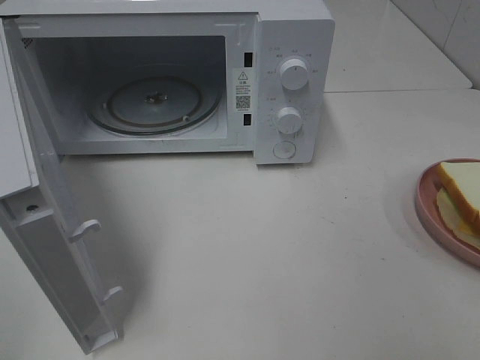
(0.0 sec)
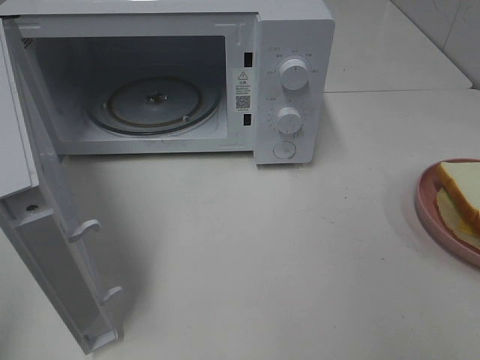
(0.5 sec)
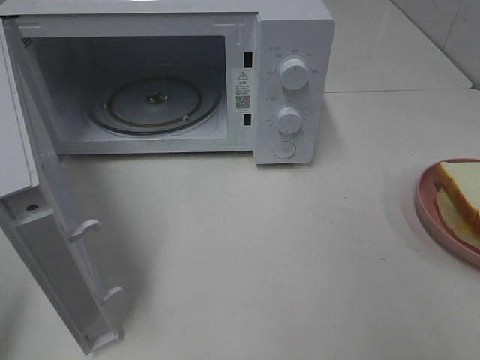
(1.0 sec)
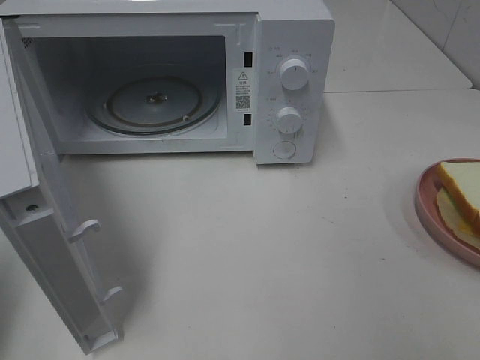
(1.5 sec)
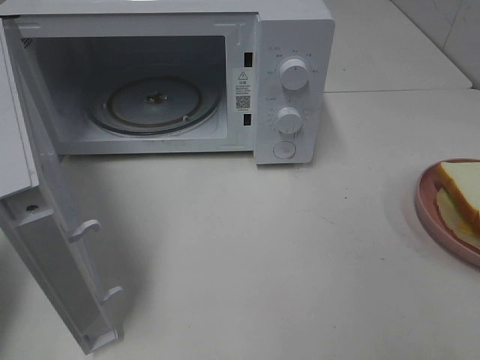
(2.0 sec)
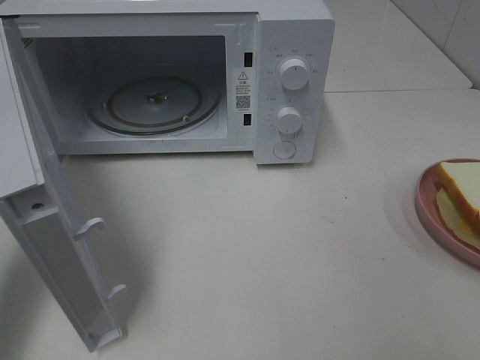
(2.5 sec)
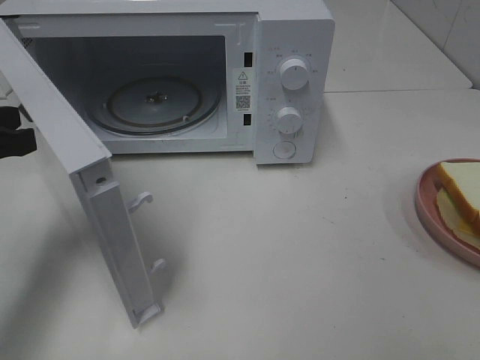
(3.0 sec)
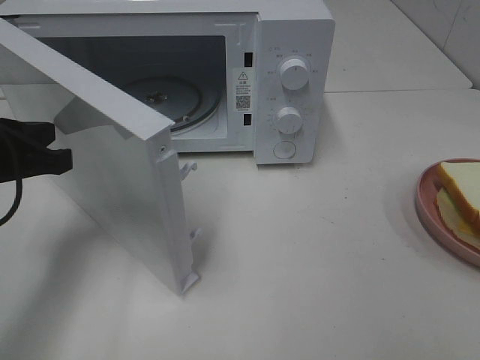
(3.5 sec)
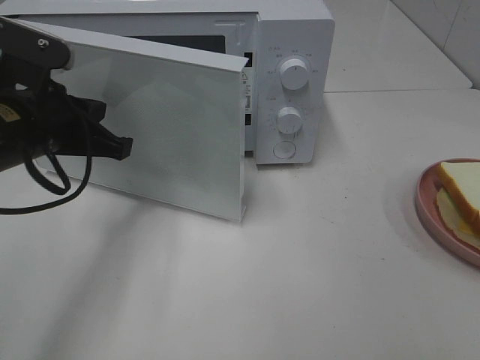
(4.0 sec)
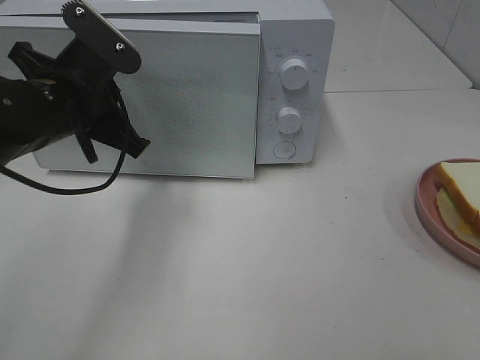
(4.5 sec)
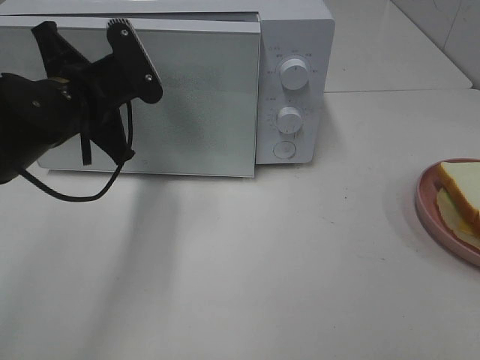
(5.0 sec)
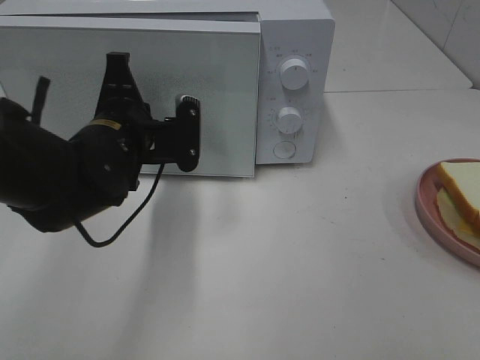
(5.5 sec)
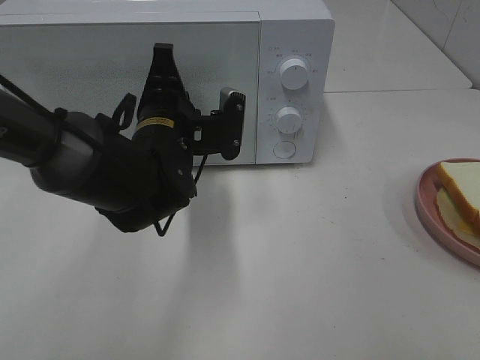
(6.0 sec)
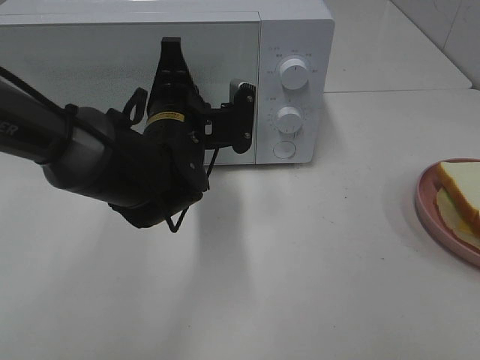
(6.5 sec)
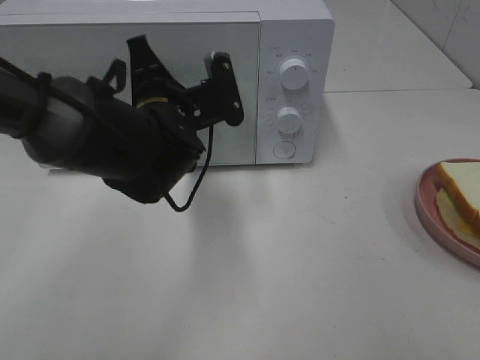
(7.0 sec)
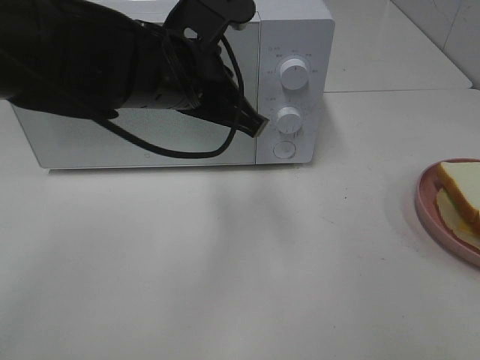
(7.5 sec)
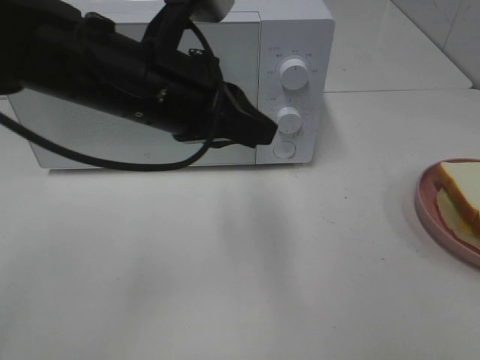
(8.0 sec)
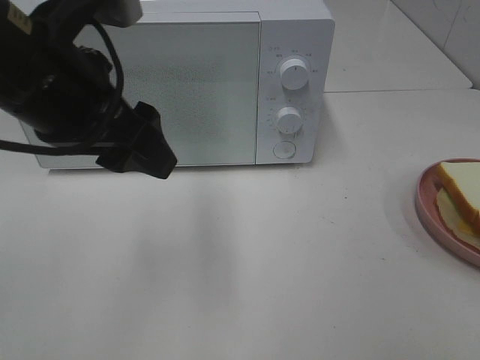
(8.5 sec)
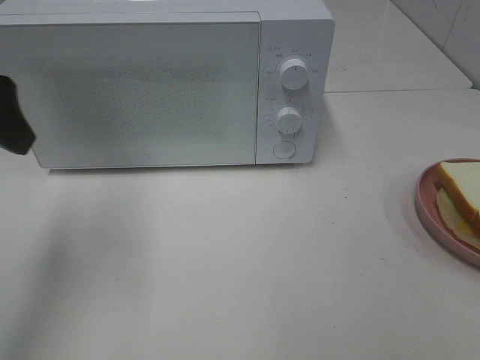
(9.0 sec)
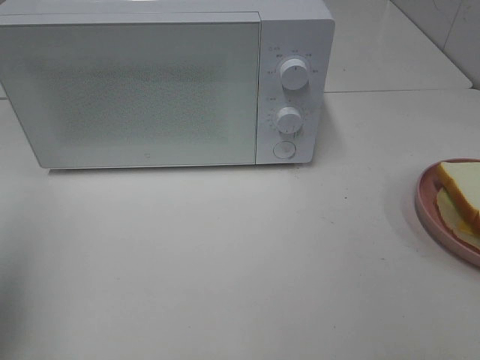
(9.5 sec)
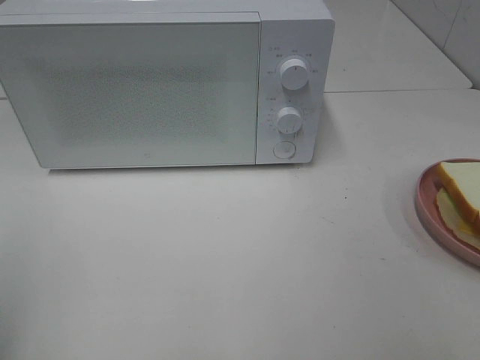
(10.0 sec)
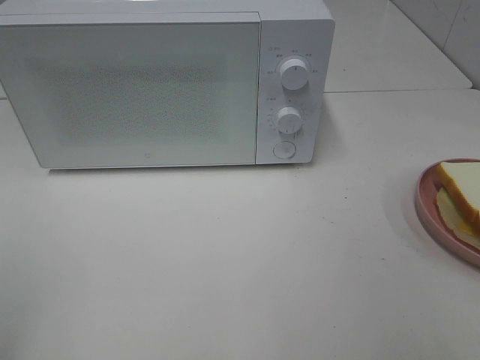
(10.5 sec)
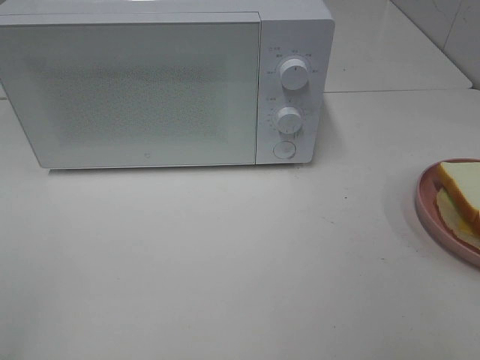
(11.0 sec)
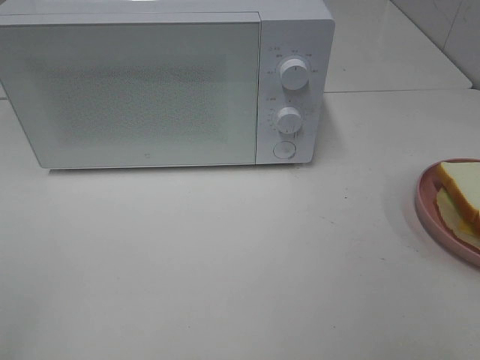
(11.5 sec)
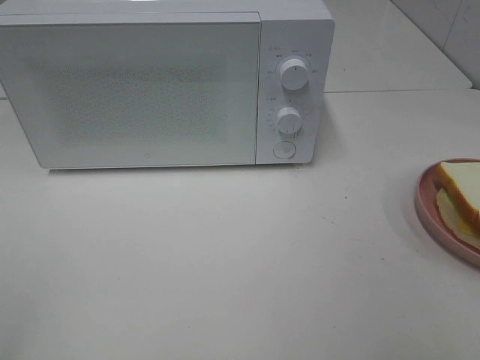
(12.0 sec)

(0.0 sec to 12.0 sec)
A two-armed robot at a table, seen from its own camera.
Task of the whole recording: Heat Sandwich.
Step, 0.0 sec - 8.0 sec: Left hand: close the microwave door.
0.0 sec - 2.0 sec: The left gripper is displaced forward by about 20 cm, and closes.
2.0 sec - 4.0 sec: The left gripper is displaced to the right and forward by some 15 cm.
4.0 sec - 6.0 sec: The left gripper heads to the right, covering roughly 10 cm.
6.0 sec - 8.0 sec: The left gripper goes roughly 15 cm upward and backward.
8.0 sec - 10.0 sec: The left gripper travels to the left and backward by roughly 30 cm, and opens up.

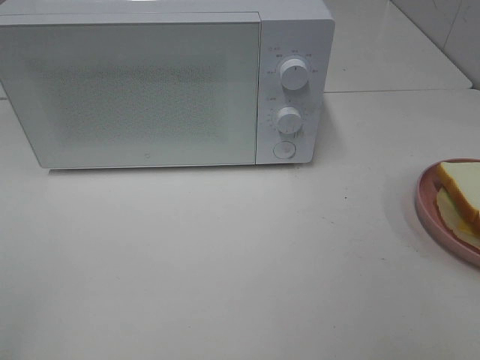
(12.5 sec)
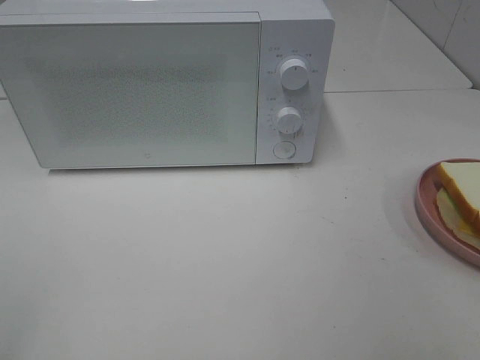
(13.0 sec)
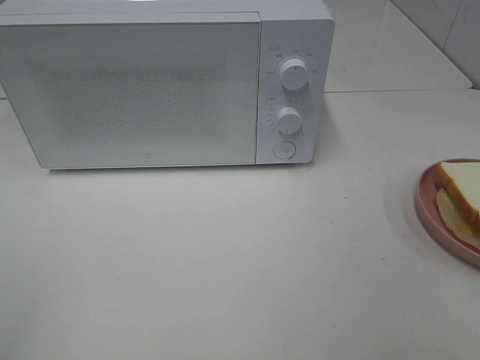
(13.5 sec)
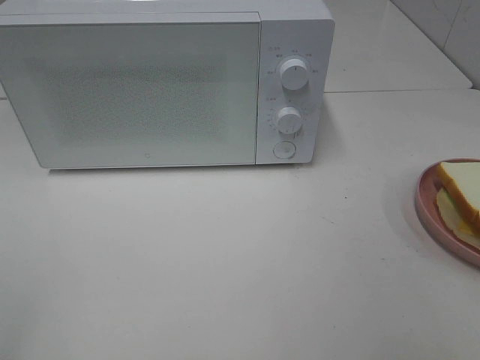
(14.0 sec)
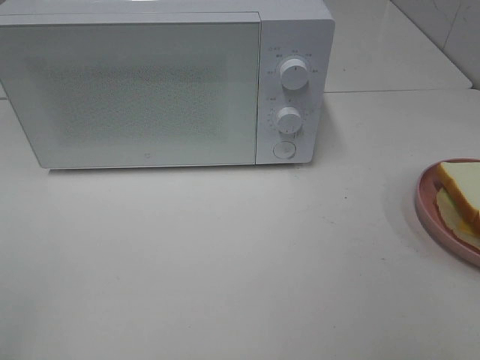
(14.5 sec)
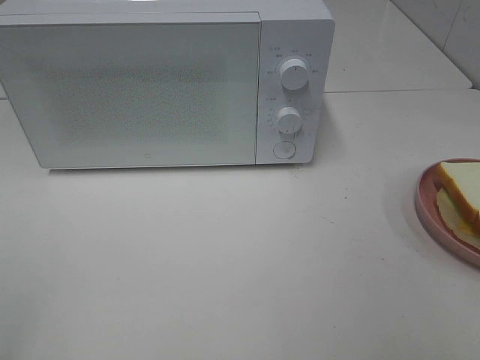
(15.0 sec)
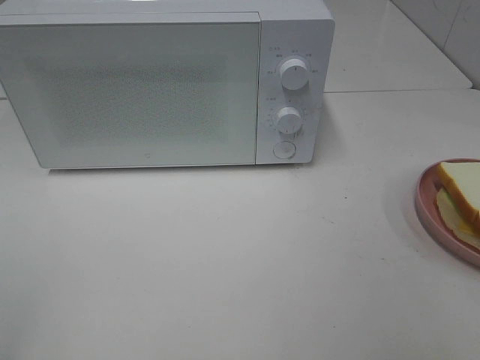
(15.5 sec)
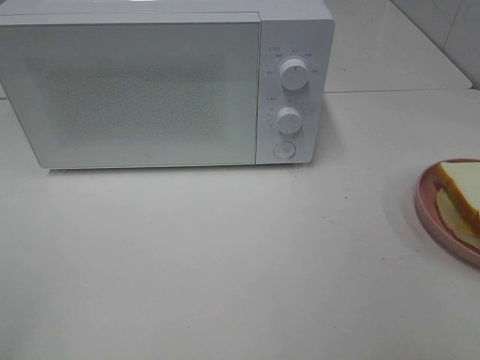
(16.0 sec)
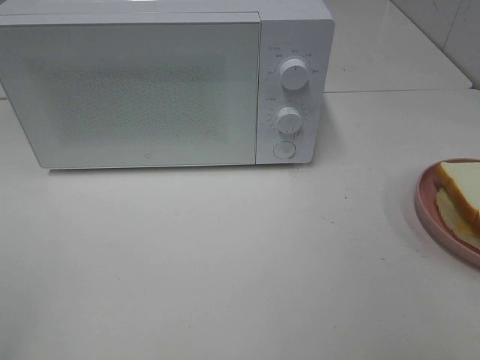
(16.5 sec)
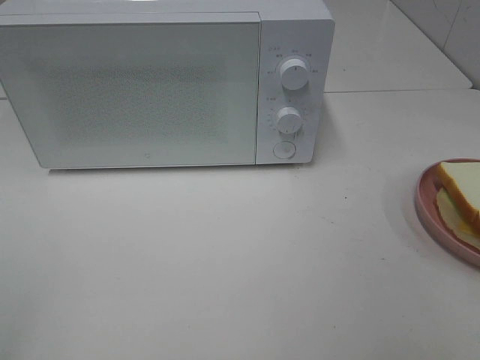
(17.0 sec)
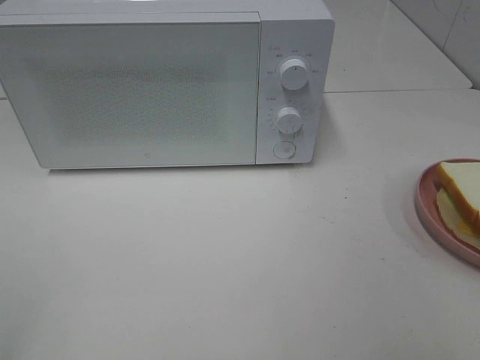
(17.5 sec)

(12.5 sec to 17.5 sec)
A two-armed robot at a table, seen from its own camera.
Task of the whole recording: Heat Sandwich.
12.5 sec - 17.5 sec: Both grippers stay about where they are.

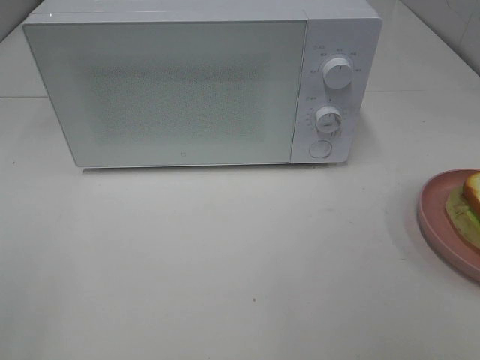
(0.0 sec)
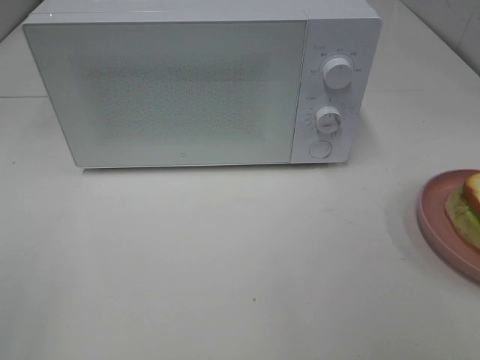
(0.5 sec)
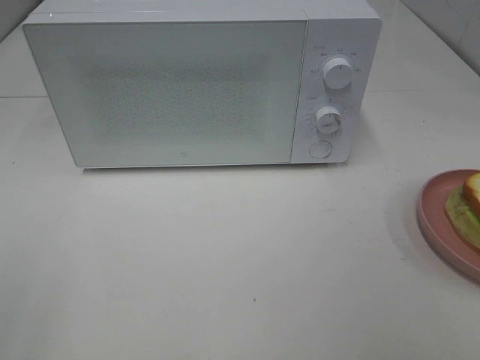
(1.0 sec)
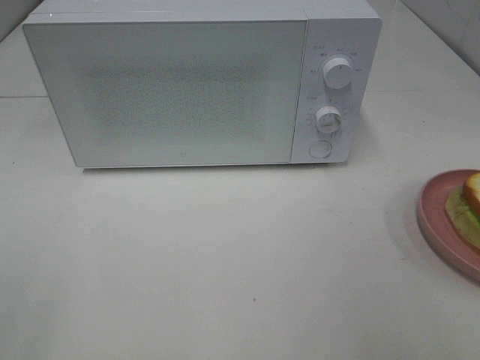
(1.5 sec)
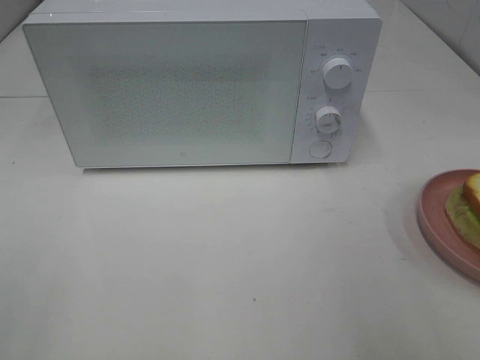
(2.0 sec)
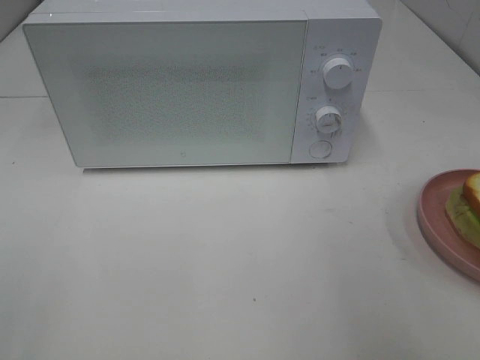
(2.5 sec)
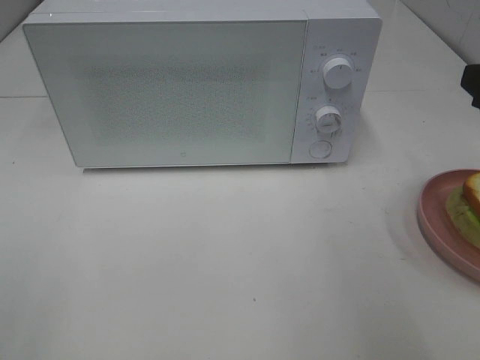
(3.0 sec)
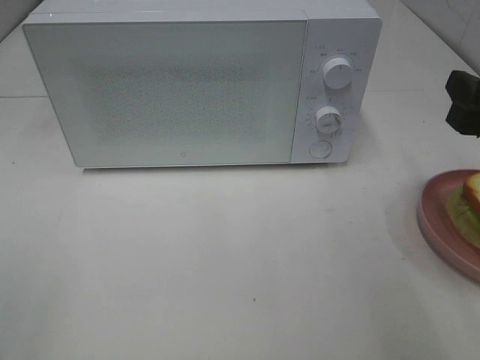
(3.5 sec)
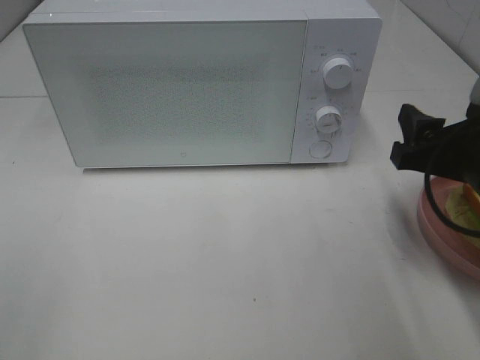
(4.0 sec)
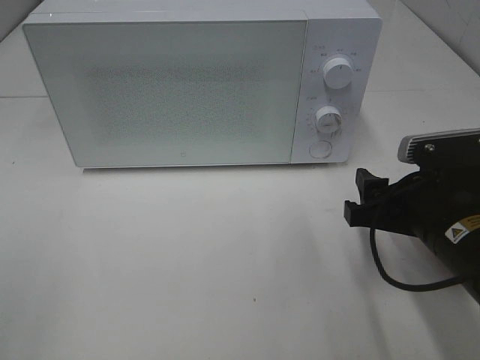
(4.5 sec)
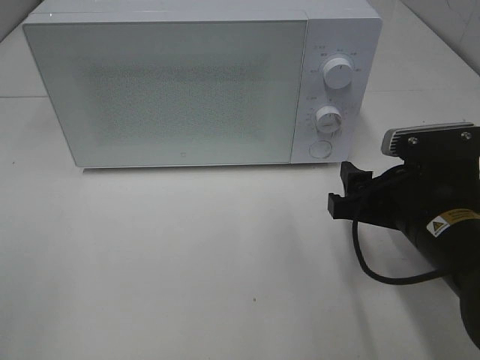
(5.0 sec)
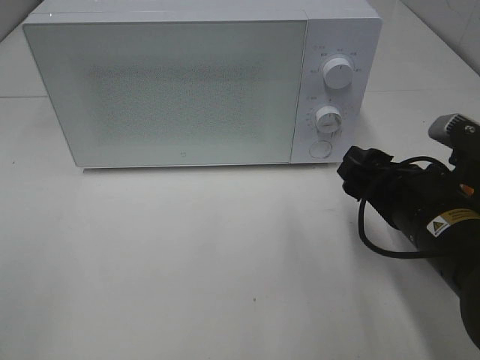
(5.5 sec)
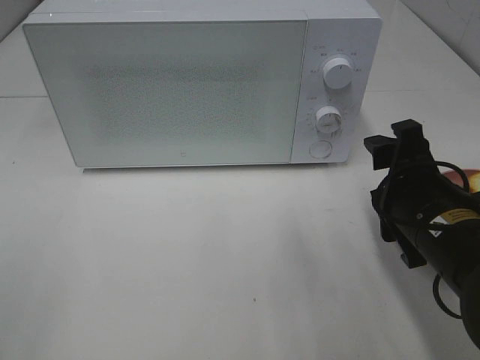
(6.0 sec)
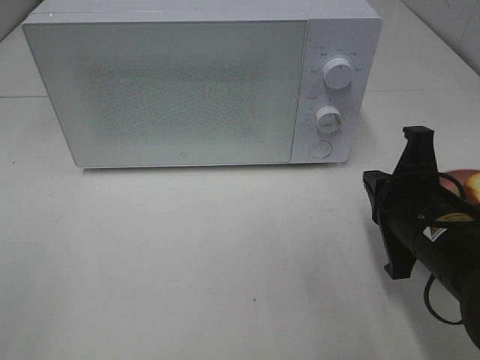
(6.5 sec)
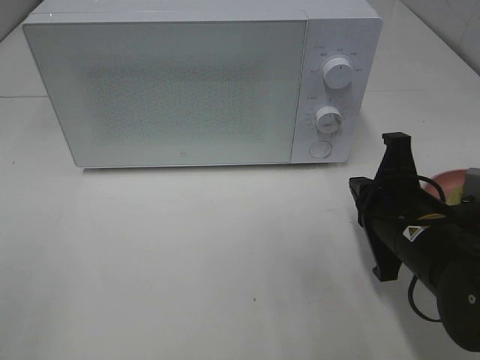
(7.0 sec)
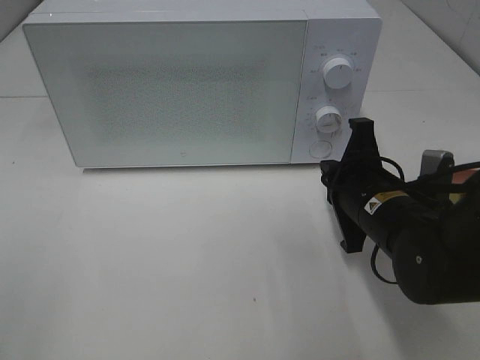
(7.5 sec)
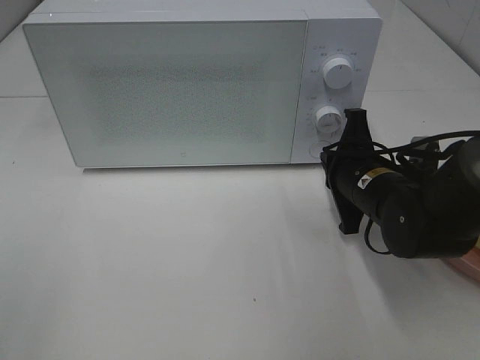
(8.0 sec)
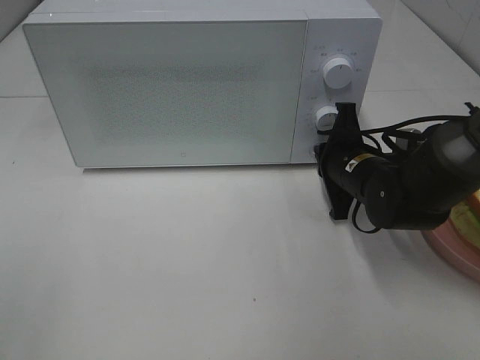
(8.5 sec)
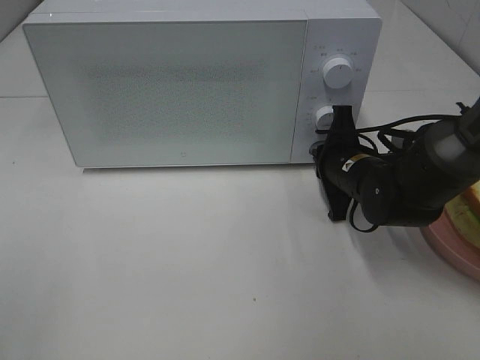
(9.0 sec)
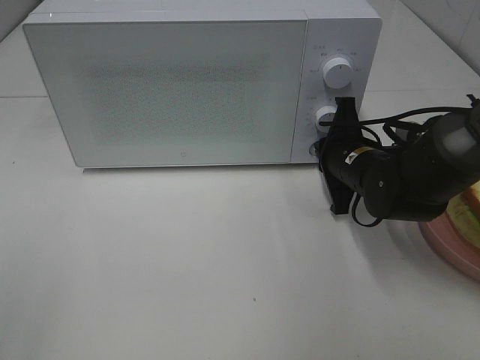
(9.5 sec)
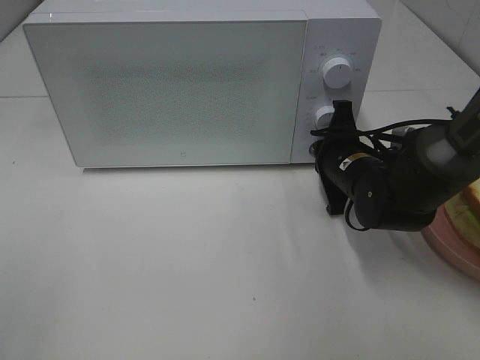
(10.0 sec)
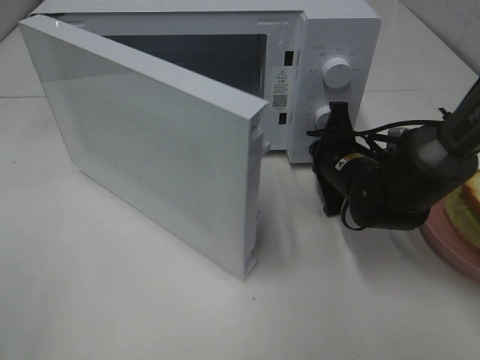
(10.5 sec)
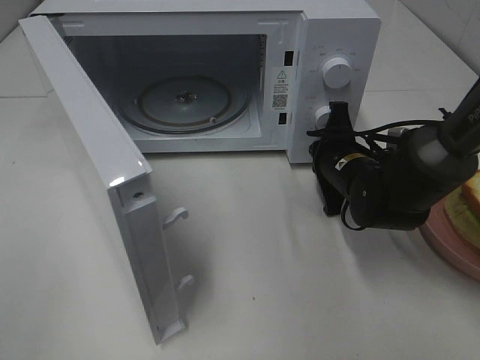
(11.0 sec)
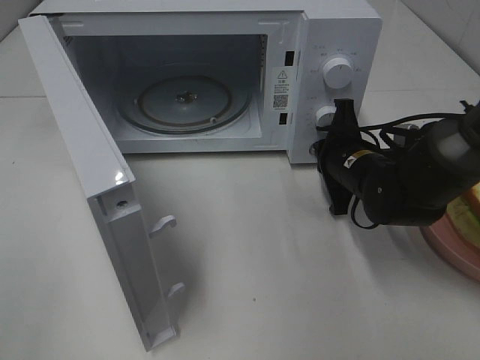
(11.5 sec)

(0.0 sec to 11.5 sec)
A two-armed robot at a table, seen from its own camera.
Task of the whole recording: Heat Sandwich.
2.0 sec - 4.0 sec: The right gripper heads downward and forward, covering approximately 15 cm.
4.0 sec - 6.0 sec: The right gripper is displaced to the left by roughly 5 cm.
6.0 sec - 7.5 sec: The right gripper heads forward, covering roughly 5 cm, and closes up.
7.5 sec - 9.5 sec: The right gripper heads forward, covering roughly 10 cm.
